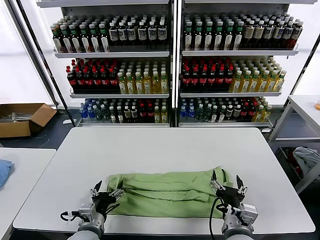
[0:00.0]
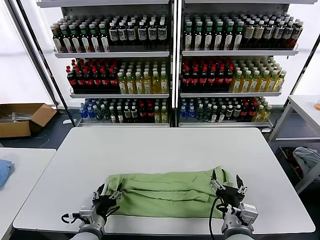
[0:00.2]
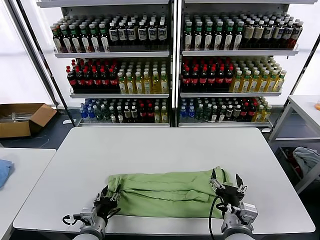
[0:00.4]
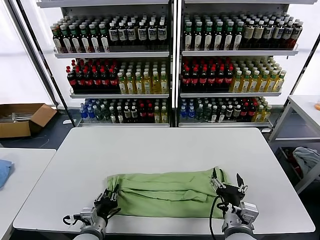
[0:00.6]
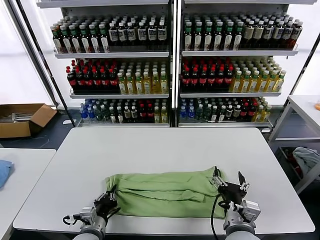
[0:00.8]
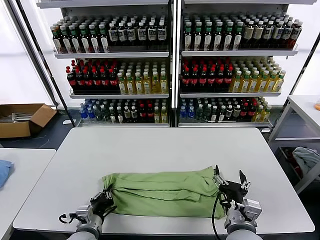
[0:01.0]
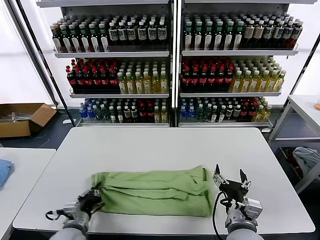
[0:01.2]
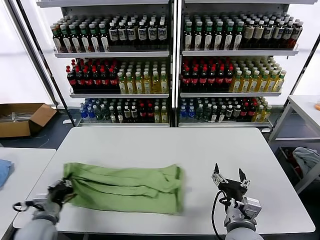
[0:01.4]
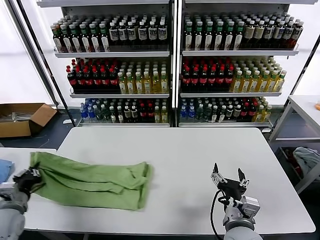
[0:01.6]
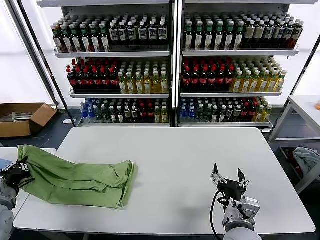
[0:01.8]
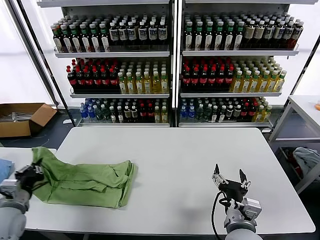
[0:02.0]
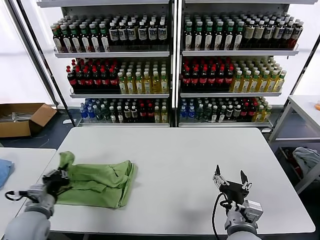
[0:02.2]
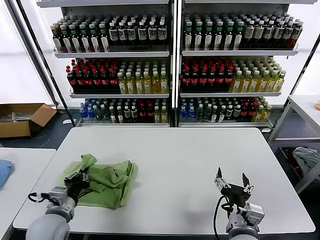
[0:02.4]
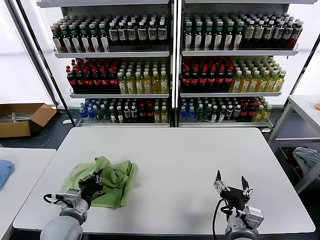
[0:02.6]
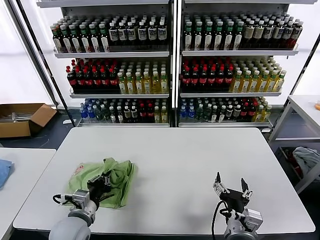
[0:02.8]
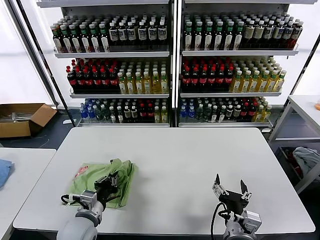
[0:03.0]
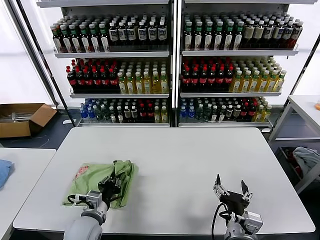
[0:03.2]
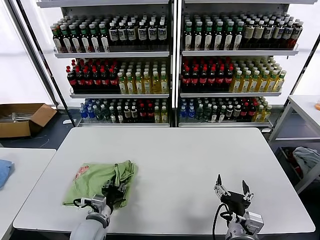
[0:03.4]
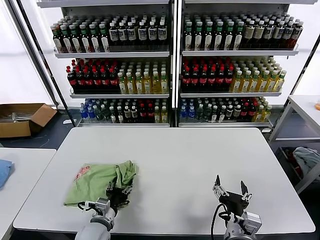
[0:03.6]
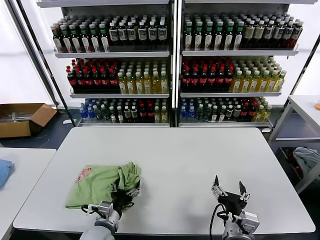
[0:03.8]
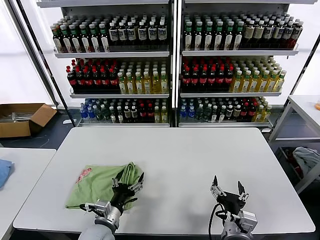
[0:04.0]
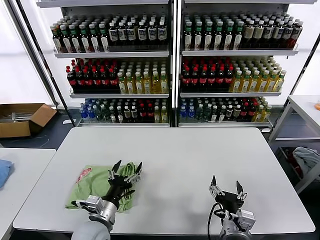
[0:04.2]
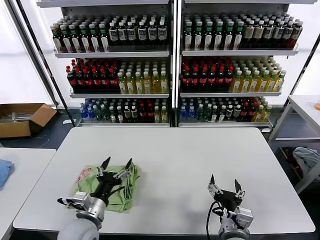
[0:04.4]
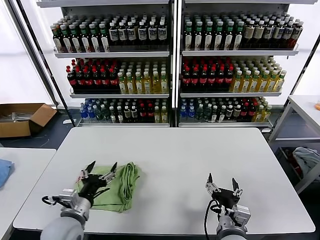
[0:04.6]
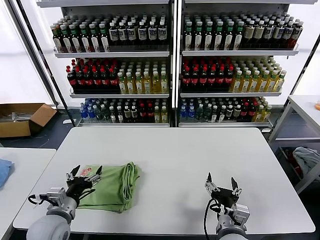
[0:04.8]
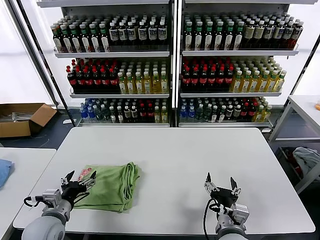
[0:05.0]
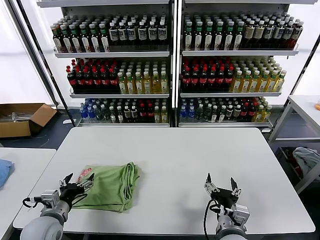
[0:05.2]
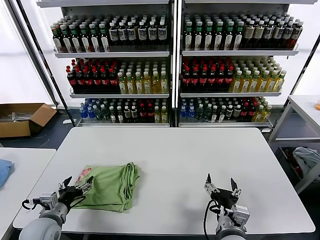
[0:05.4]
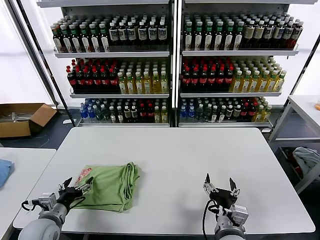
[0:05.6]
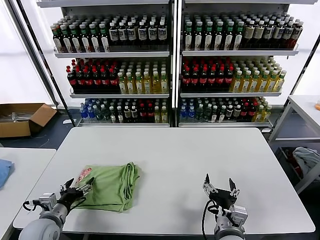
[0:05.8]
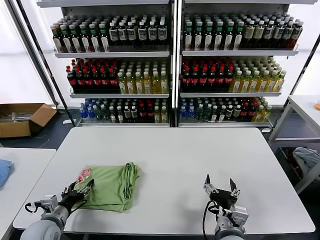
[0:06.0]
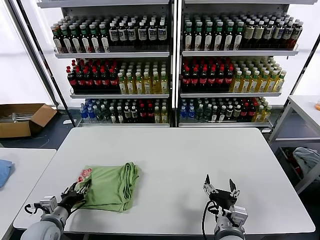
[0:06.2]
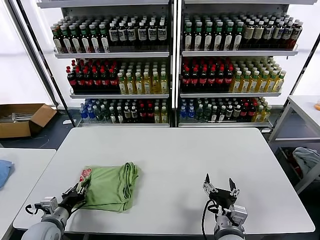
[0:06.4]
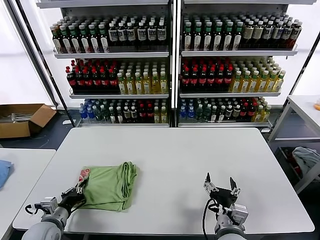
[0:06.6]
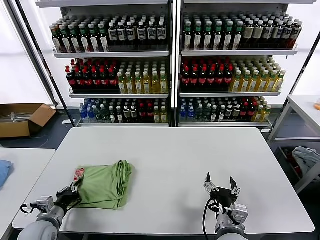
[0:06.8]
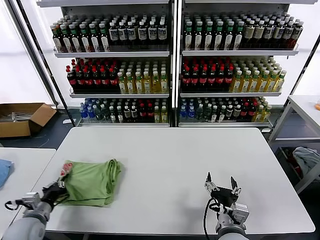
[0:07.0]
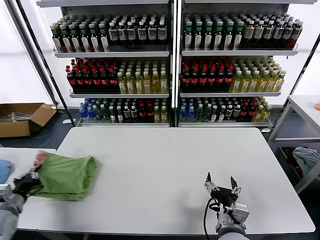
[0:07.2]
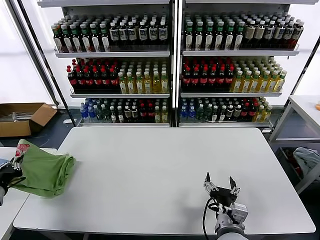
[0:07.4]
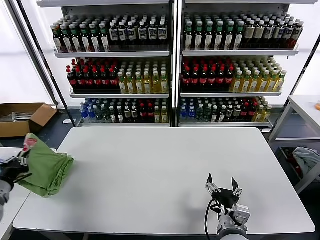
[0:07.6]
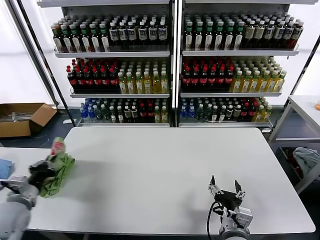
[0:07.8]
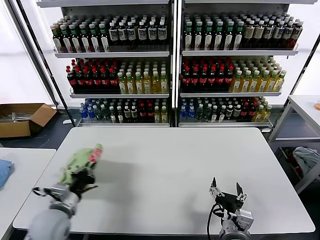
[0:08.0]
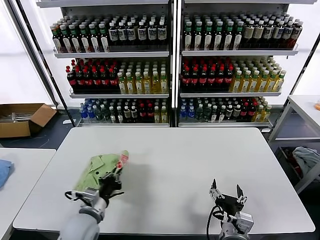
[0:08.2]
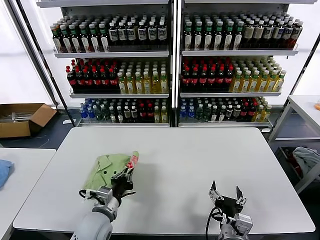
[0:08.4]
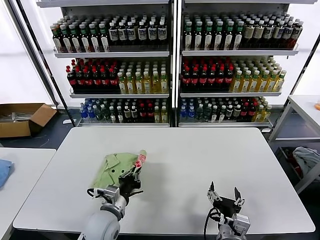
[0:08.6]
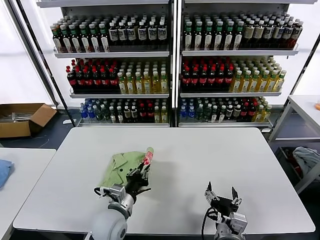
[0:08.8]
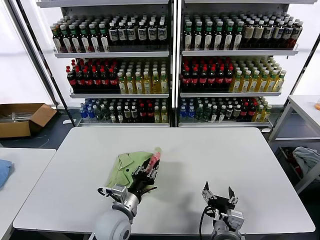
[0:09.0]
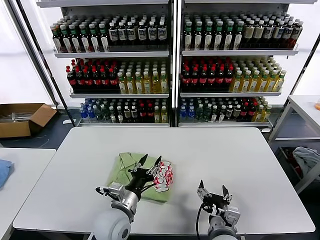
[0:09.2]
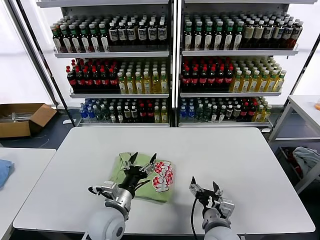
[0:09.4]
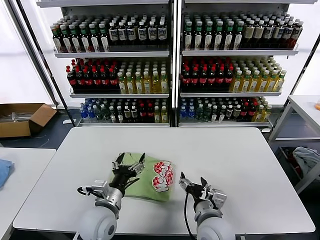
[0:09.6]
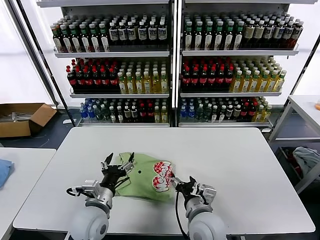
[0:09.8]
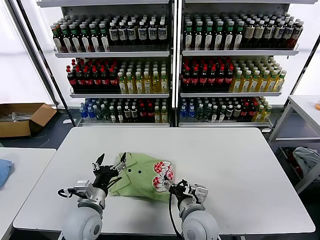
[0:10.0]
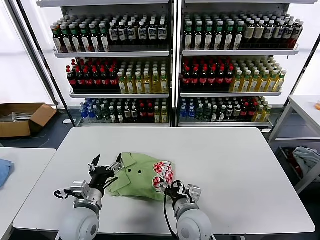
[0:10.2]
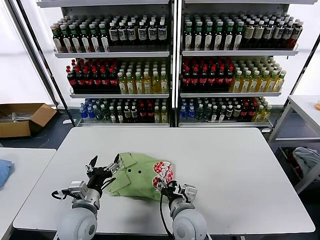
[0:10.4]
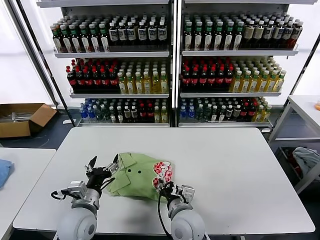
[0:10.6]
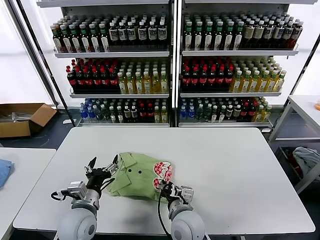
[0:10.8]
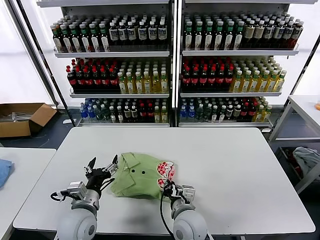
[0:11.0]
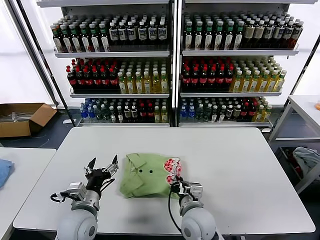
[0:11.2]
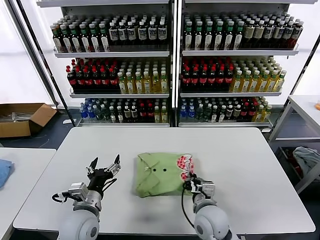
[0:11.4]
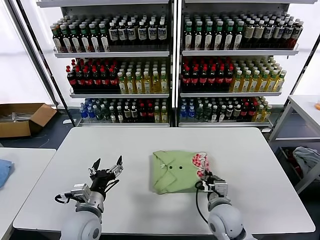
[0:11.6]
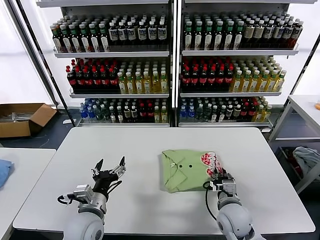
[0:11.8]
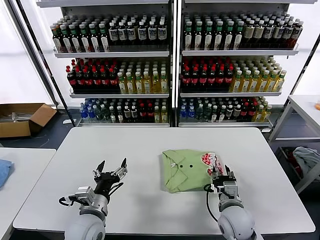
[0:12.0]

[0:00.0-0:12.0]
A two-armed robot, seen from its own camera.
Task of the whole recording: fold and organize the clothes.
Step, 0:00.0 to 0:00.6: use the left gripper to clamp the left edge of the fabric.
Step, 0:01.0 to 0:04.2: use the left gripper to drag the left edge of the fabric to the left and folds it over the right edge.
Step, 0:04.4 to 0:09.0: Flip the folded clothes over with left gripper.
0:00.0 to 0:01.6: The left gripper moves to the left, approximately 20 cm, and closes.
0:01.6 to 0:03.0: The left gripper goes about 20 cm to the right.
0:03.0 to 0:04.4: The left gripper goes downward and returns, about 5 cm each way, and opens.
0:04.4 to 0:06.0: The left gripper shifts approximately 15 cm to the left.
0:06.0 to 0:07.6: The left gripper goes roughly 15 cm to the left and upward, and closes up.
0:07.6 to 0:09.0: The left gripper travels to the right by about 35 cm, and opens its fingers.
0:09.0 to 0:10.4: The right gripper moves to the left and forward, roughly 10 cm. Meanwhile the left gripper moves to the left, about 10 cm, and opens its fingers.
0:10.4 to 0:12.0: The right gripper heads to the right, covering about 15 cm, and closes and opens again.

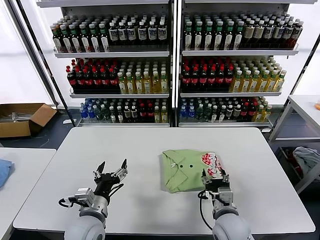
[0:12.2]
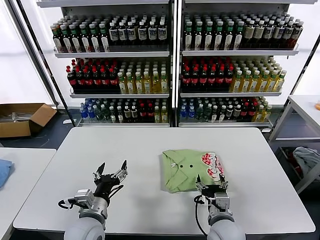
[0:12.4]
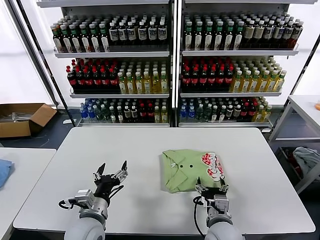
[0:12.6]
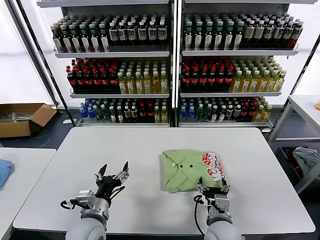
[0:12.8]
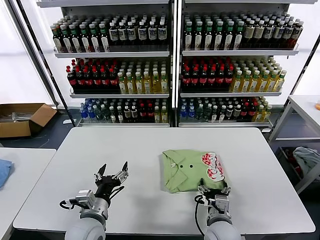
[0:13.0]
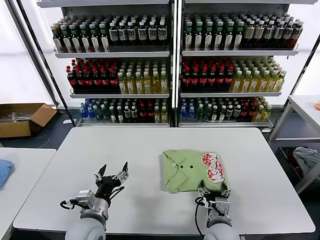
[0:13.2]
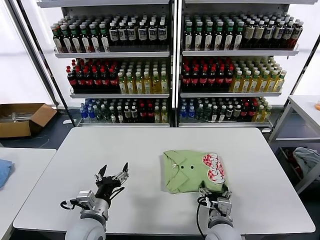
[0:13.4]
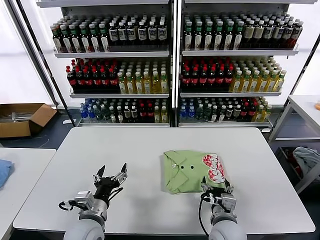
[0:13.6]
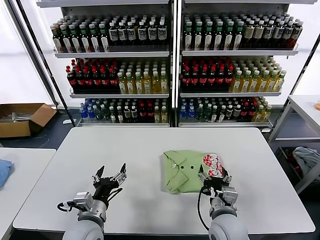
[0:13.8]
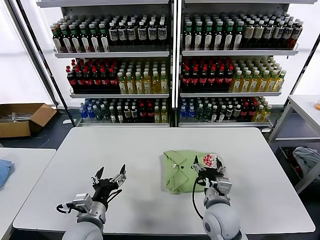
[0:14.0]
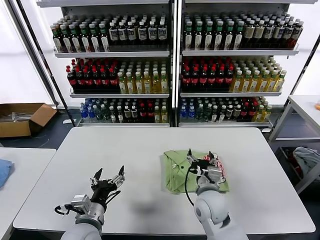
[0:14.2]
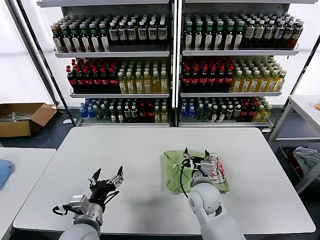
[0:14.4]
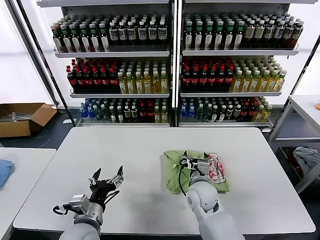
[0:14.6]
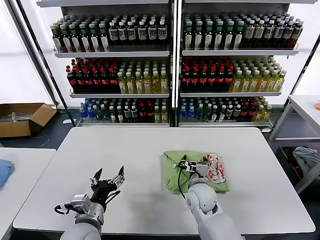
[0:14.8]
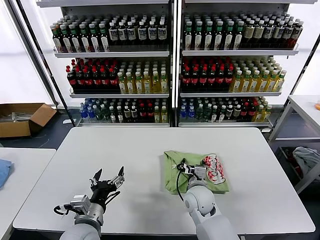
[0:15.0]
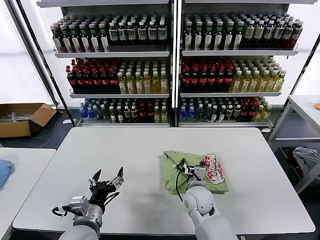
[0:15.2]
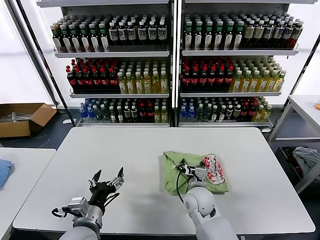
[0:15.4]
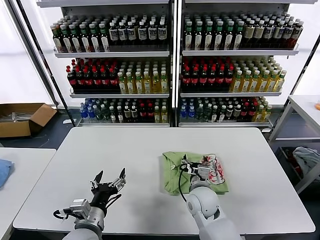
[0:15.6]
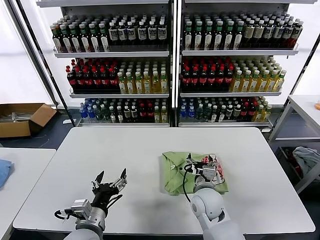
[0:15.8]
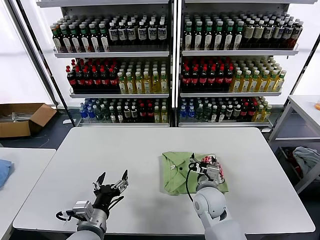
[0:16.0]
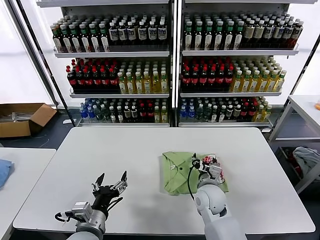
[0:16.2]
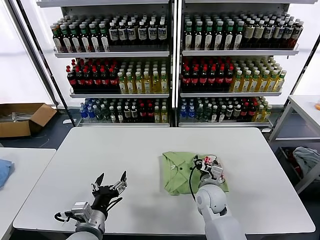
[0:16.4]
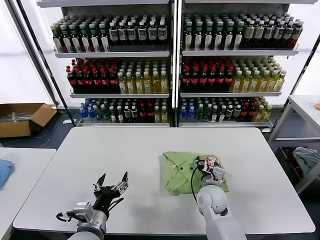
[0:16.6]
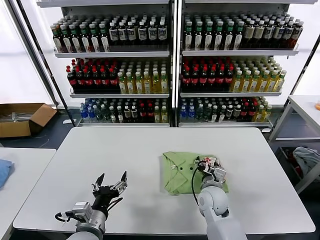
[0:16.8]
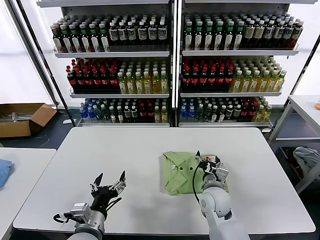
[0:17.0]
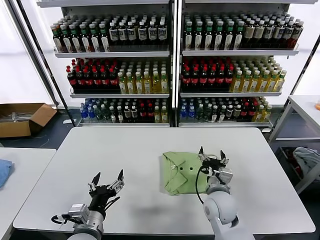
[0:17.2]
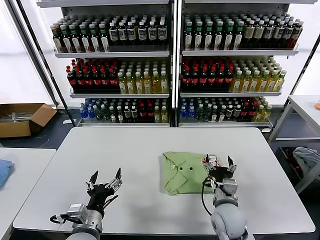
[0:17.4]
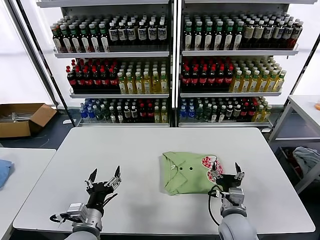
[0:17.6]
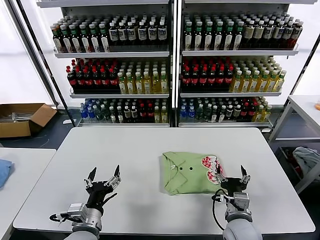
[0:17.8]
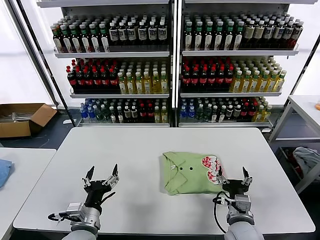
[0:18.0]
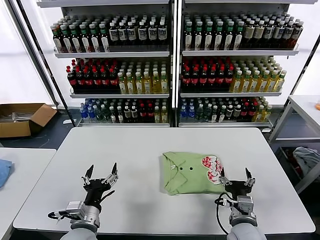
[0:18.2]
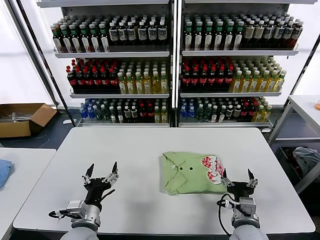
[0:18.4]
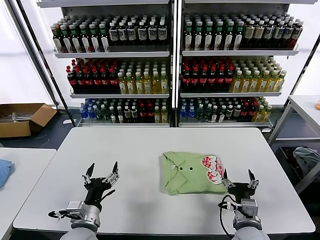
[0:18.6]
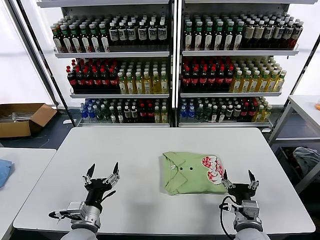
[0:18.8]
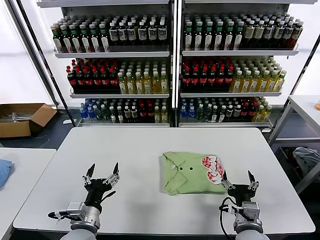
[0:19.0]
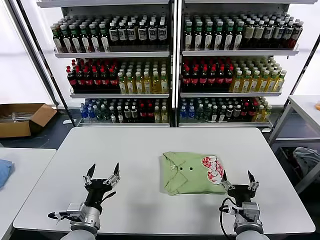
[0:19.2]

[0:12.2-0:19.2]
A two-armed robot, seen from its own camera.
Task of the whole recording: fold and organize the clothes.
Step, 0:12.2 to 0:17.0: Drag the clothes to the center of the table.
0:12.2 to 0:13.6: The grippers move only a little.
0:13.6 to 0:15.0: The right gripper heads forward and to the left, covering approximately 15 cm.
0:15.0 to 0:16.4: The grippers move only a little.
0:16.4 to 0:17.8: The right gripper heads backward and to the right, covering approximately 15 cm.
0:17.8 to 0:19.2: The grippers make only small movements.
